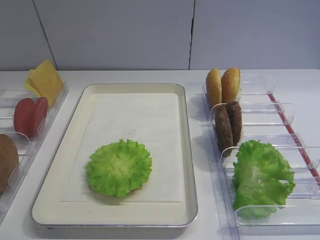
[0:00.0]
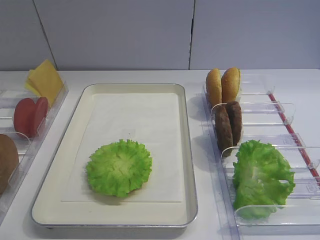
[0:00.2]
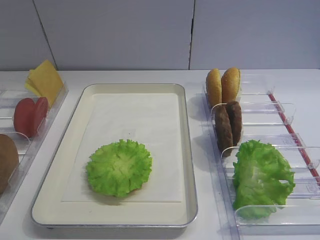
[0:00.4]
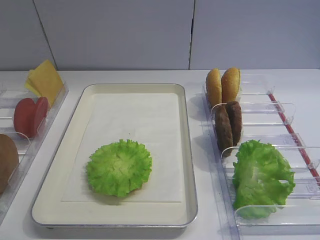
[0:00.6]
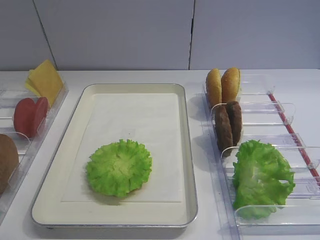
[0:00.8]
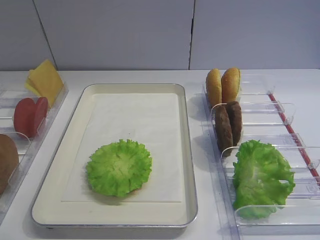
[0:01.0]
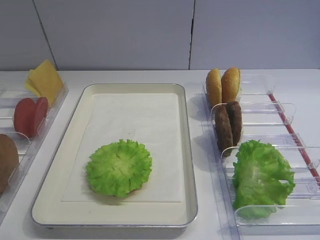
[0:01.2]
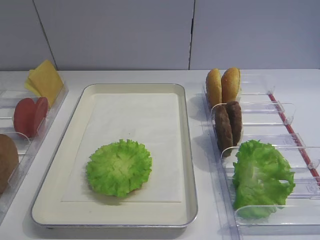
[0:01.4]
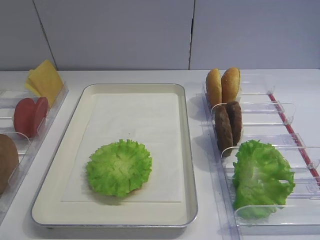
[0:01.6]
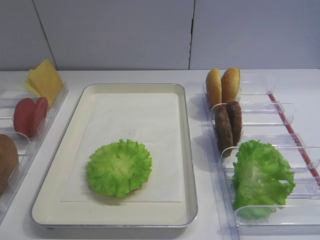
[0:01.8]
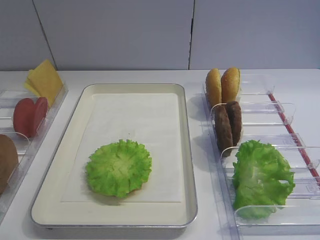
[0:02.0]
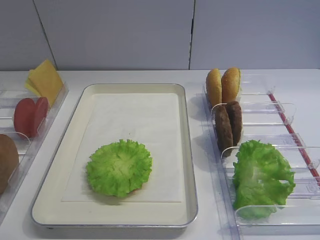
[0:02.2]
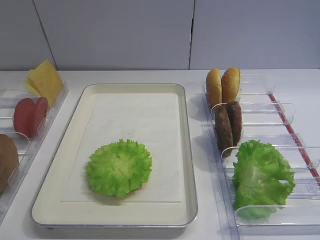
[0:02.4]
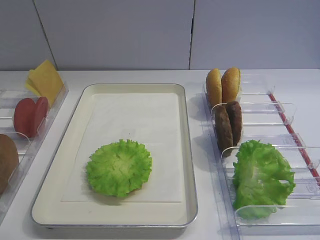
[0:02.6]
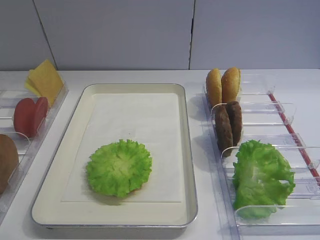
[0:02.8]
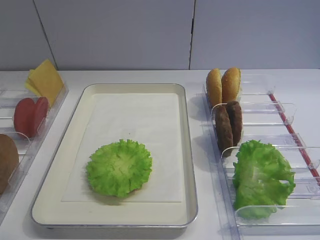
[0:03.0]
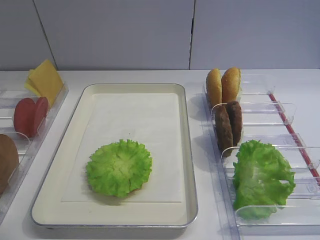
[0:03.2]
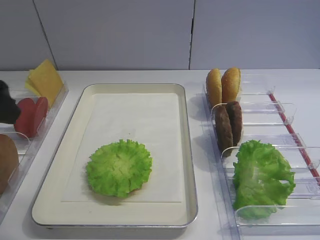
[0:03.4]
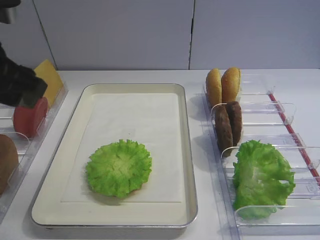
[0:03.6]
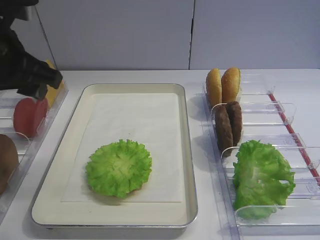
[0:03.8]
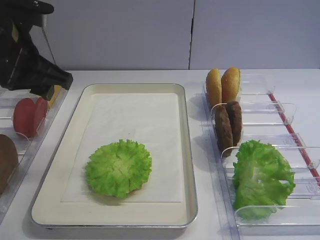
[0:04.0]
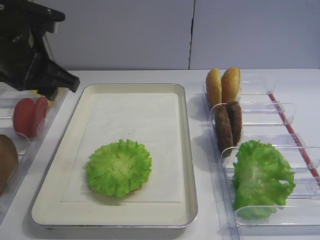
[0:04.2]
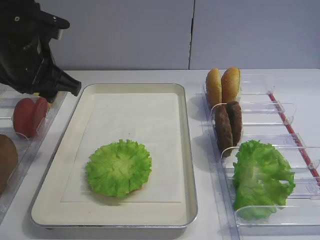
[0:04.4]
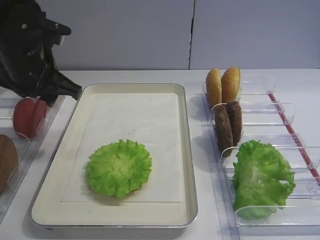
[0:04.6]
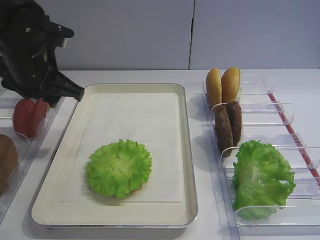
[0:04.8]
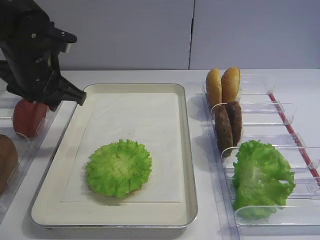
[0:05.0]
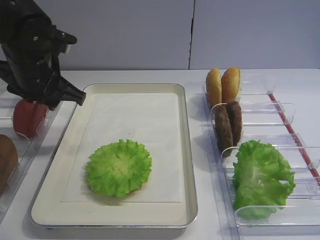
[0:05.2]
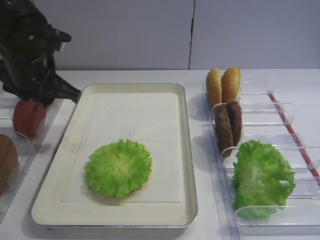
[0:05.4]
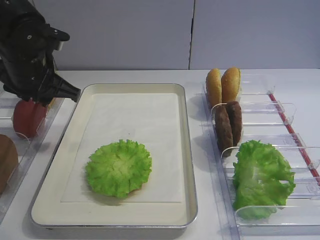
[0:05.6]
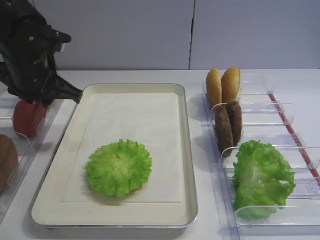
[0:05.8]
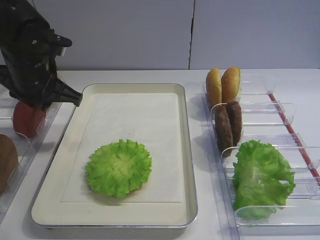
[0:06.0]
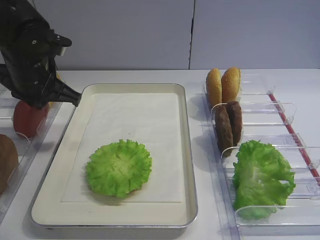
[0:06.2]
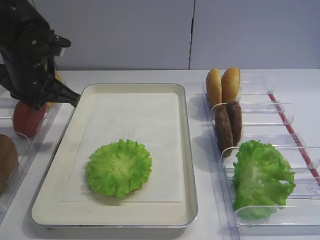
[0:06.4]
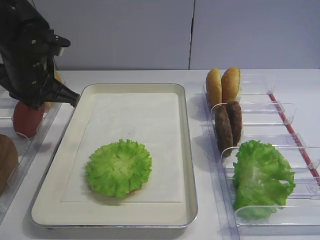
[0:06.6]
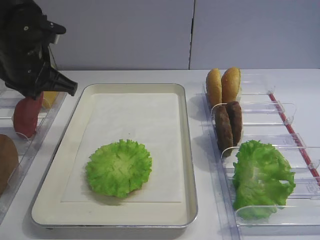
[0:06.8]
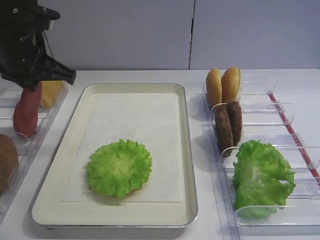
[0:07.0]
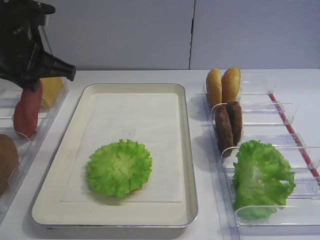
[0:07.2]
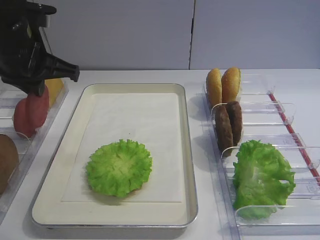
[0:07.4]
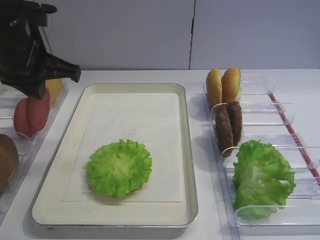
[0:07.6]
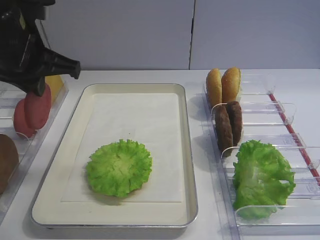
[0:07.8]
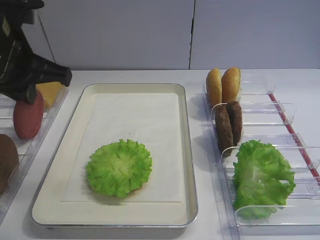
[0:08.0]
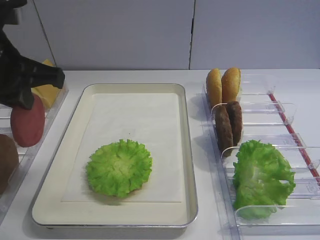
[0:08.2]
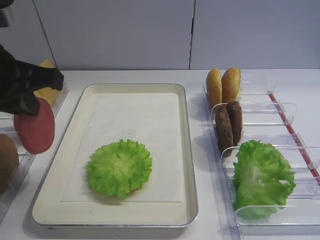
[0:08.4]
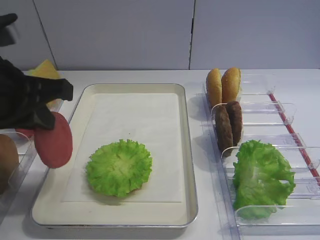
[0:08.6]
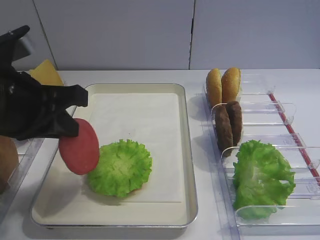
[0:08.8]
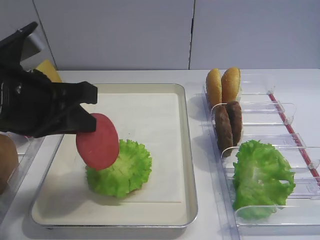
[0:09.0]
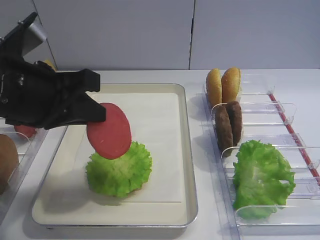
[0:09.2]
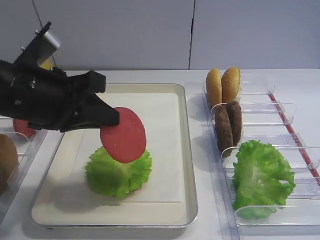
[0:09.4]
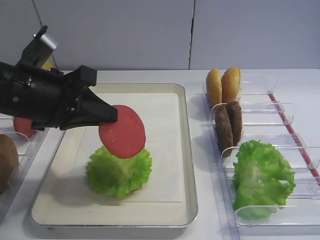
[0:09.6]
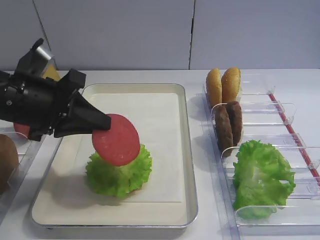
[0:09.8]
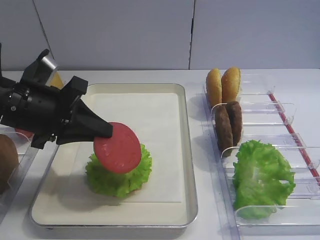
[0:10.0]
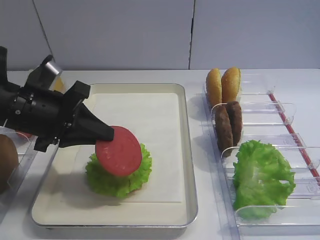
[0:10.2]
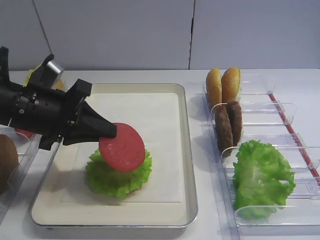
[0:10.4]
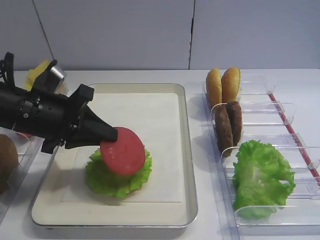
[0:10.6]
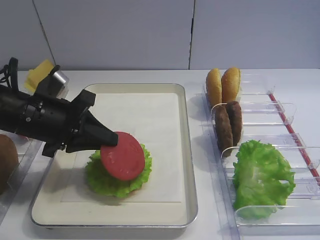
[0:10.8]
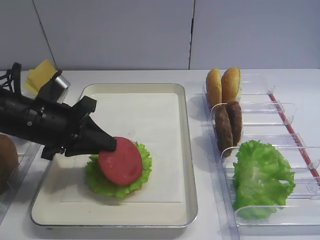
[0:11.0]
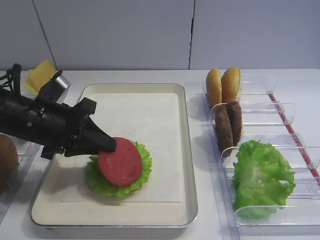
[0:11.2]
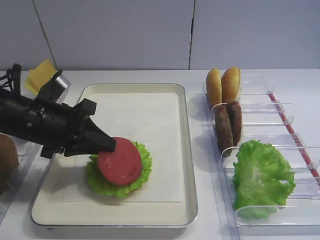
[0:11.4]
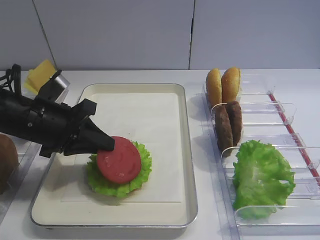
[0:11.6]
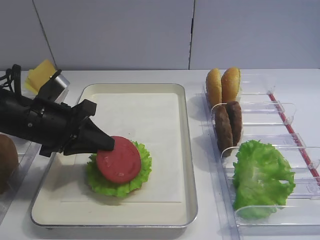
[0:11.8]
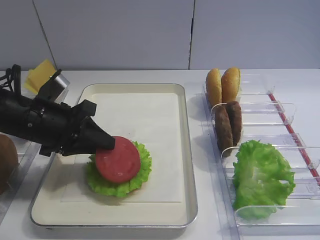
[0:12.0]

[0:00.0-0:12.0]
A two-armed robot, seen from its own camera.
Step, 0:00.0 to 0:06.8: Pick up the tomato slice with the left gripper.
0:03.0 to 0:04.4: The left gripper moves forward, roughly 20 cm.
0:04.4 to 0:06.0: The left gripper closes up.
0:06.0 to 0:07.6: The left gripper moves upward, approximately 5 cm.
0:07.6 to 0:09.0: The left gripper moves backward, roughly 10 cm.
0:09.0 to 0:10.4: The left gripper is displaced downward and forward by approximately 10 cm.
0:10.4 to 0:12.0: The grippers move only a little.

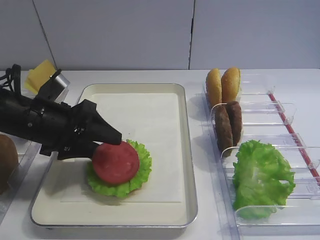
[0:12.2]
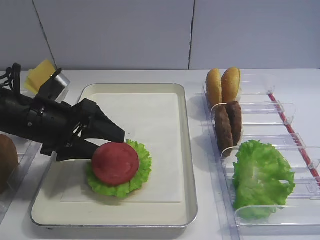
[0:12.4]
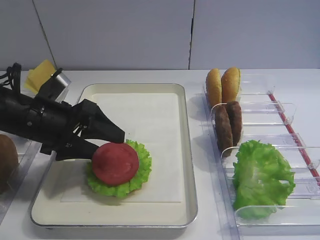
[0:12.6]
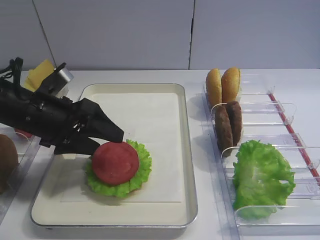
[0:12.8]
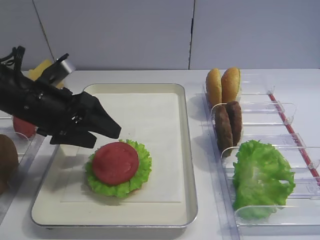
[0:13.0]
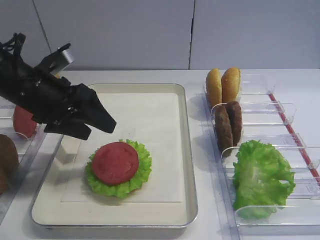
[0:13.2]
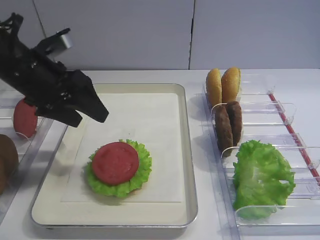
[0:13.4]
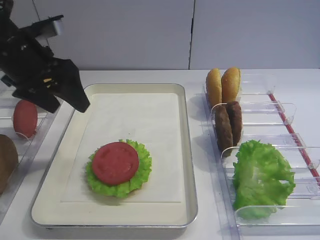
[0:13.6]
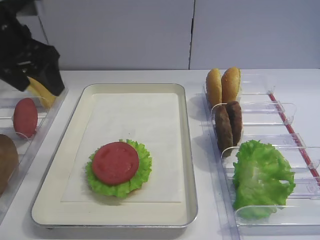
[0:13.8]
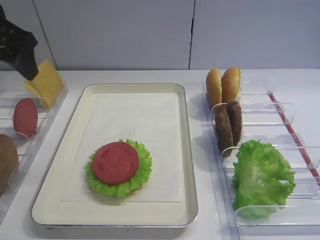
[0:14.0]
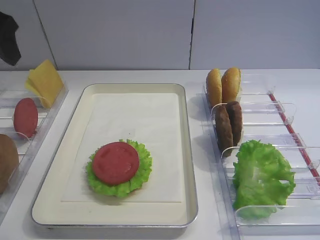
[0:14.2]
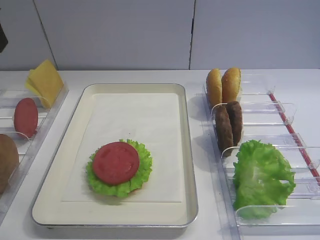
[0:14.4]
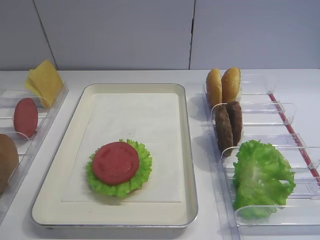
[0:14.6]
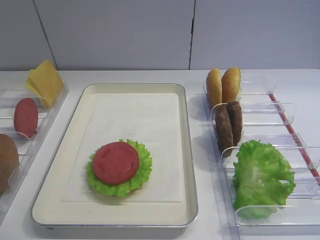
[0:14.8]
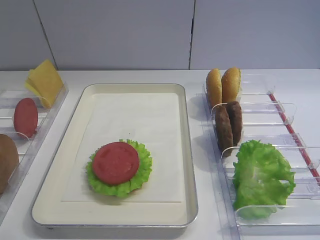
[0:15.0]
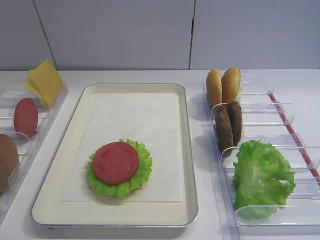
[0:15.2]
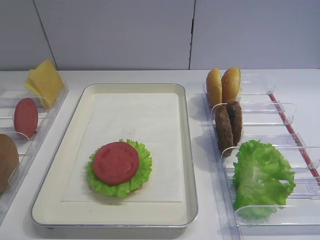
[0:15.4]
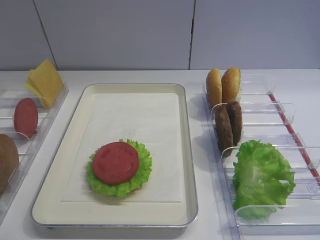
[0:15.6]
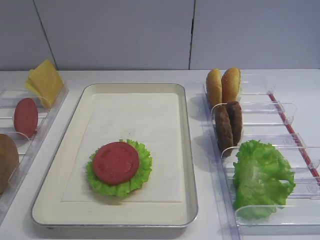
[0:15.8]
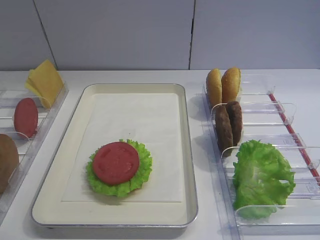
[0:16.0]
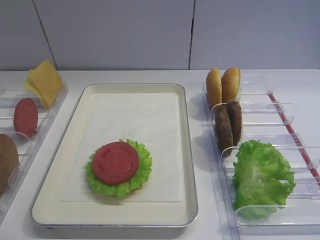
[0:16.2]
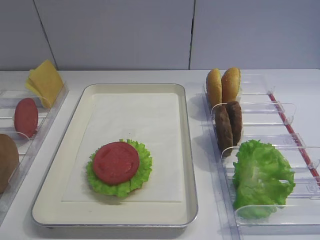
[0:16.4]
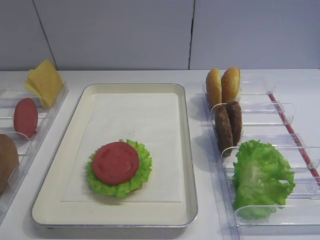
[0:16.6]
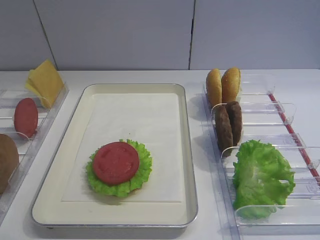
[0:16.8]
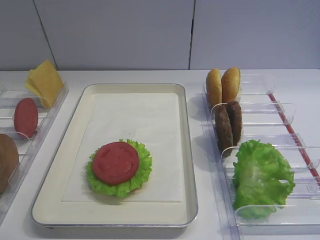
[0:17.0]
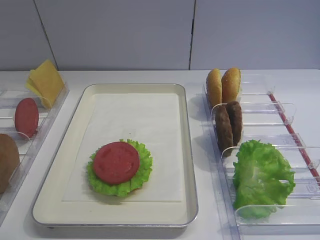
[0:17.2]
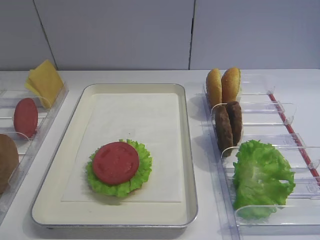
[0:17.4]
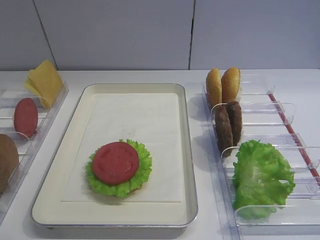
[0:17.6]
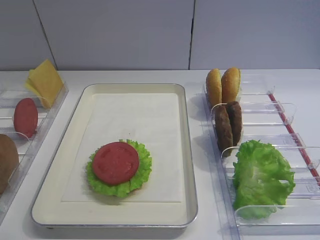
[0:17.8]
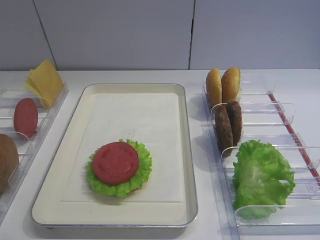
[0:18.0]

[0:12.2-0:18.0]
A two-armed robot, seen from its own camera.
0:12.2 to 0:13.6: The left gripper travels upward by about 10 cm, and opens its fingers.
0:13.6 to 0:15.0: The left gripper goes about 20 cm backward, upward and to the left.
0:16.6 to 0:18.0: Both grippers stay about where they are.

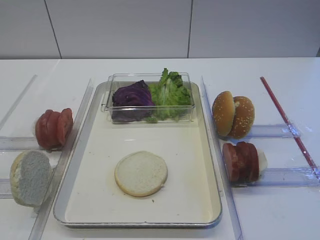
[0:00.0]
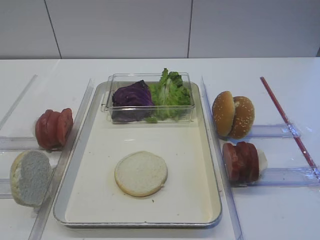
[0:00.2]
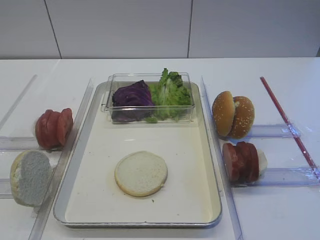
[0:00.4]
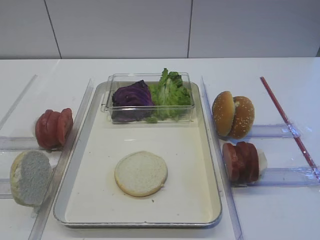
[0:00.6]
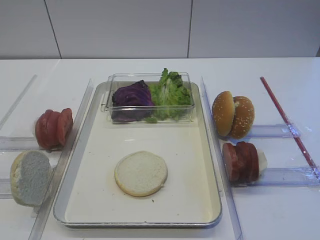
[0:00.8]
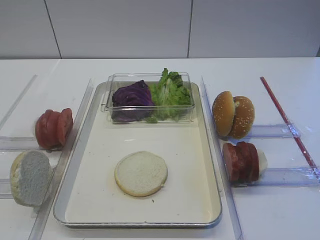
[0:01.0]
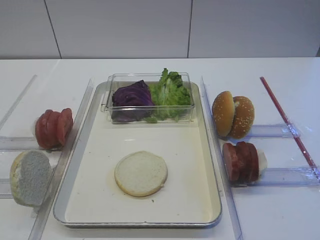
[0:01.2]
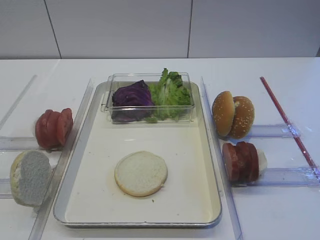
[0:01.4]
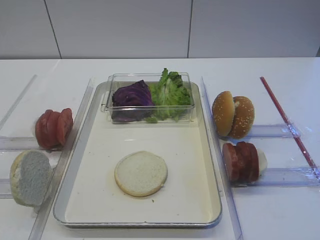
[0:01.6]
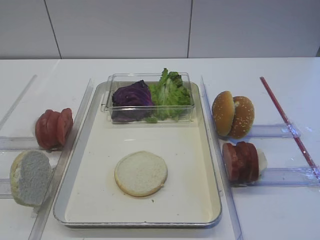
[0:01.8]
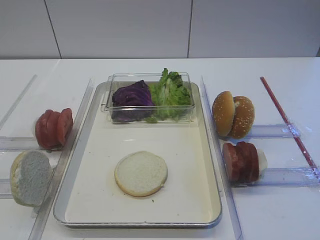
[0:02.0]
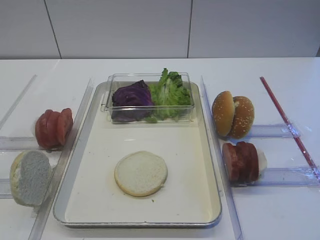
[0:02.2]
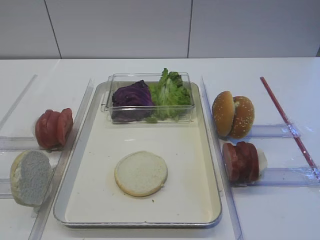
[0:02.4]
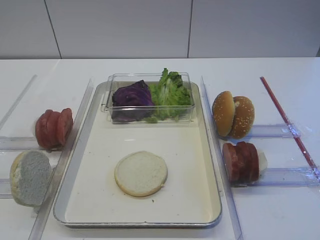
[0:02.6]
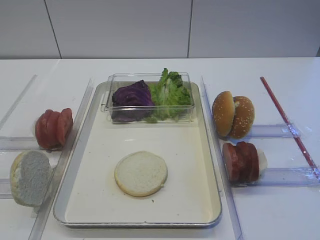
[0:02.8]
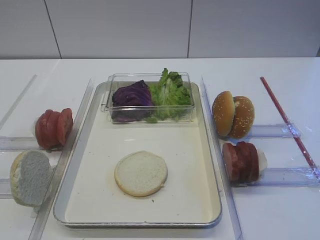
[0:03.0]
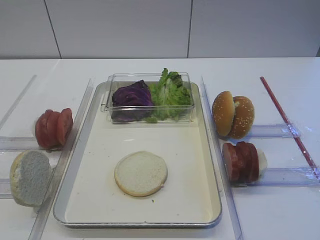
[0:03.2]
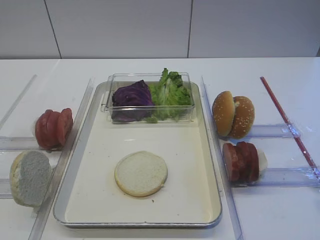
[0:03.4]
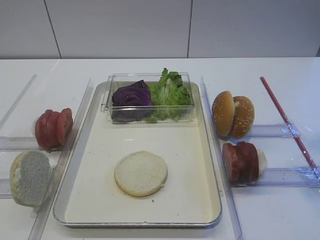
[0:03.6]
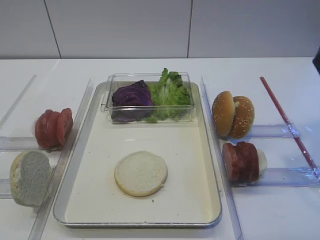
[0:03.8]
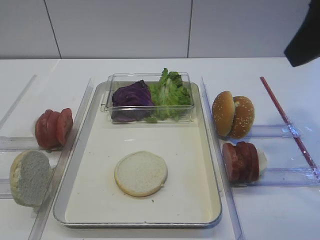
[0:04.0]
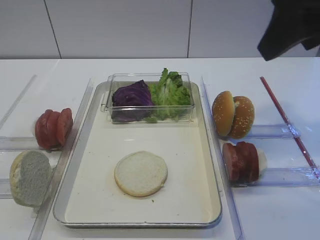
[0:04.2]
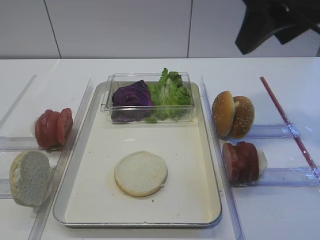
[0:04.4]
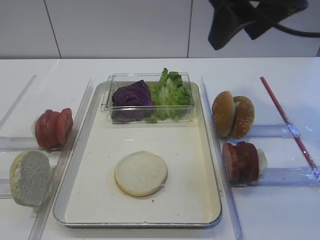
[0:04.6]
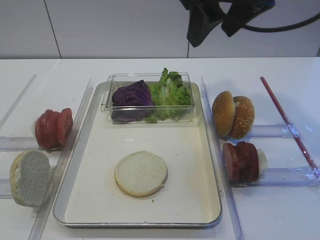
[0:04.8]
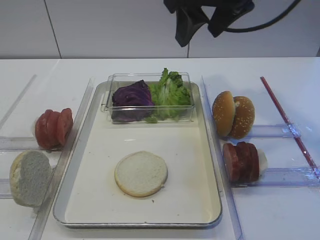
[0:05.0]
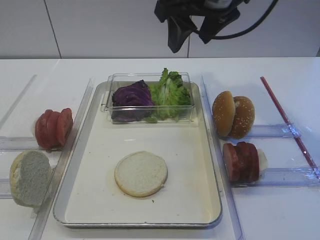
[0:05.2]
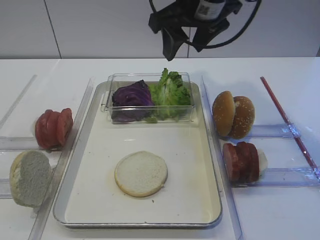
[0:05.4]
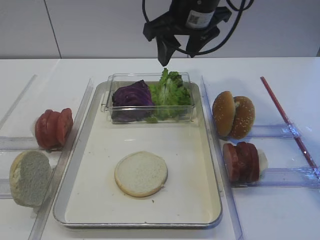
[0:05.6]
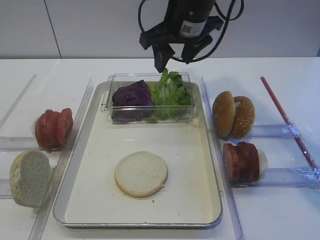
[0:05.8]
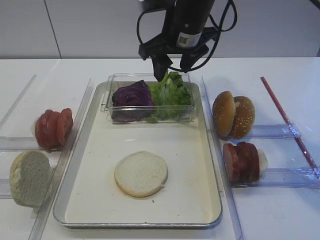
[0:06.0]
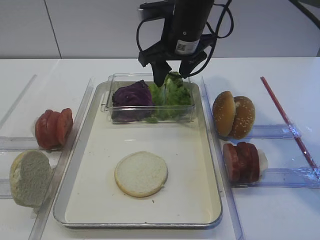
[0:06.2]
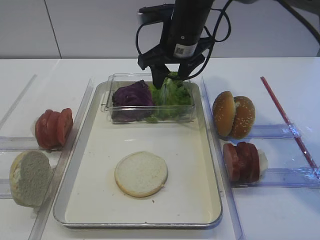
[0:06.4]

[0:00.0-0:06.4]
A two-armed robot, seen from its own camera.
0:03.2 to 0:04.8: The right gripper heads forward and to the left, covering roughly 25 cm. Meanwhile the left gripper opens.
0:04.8 to 0:06.4: The right gripper goes roughly 20 cm downward, forward and to the left.
